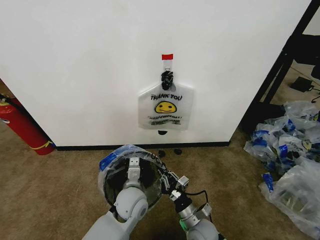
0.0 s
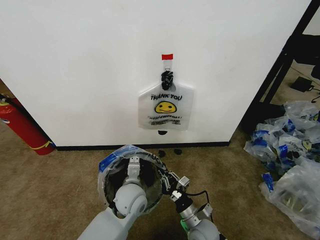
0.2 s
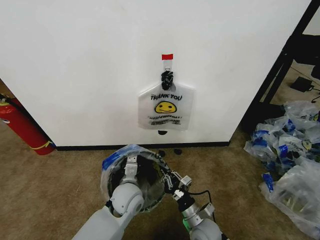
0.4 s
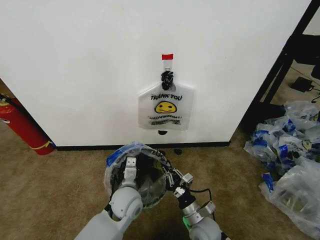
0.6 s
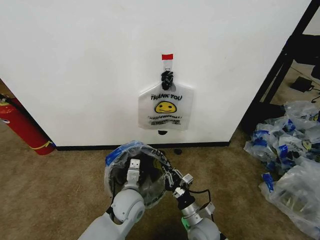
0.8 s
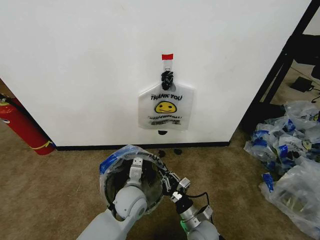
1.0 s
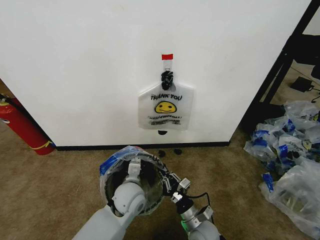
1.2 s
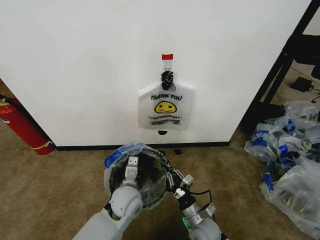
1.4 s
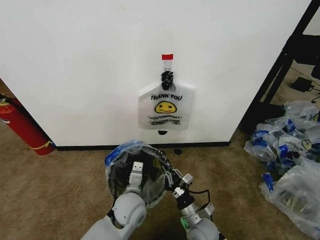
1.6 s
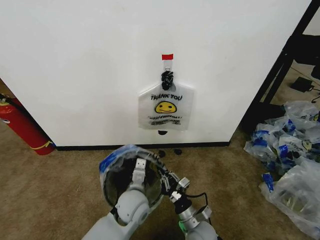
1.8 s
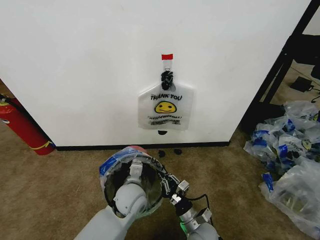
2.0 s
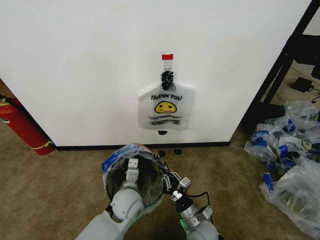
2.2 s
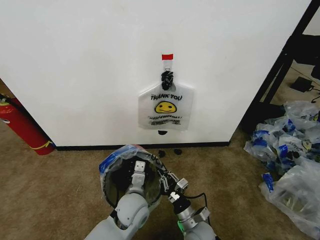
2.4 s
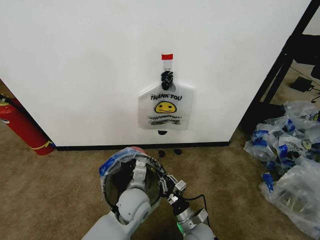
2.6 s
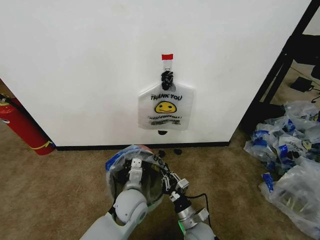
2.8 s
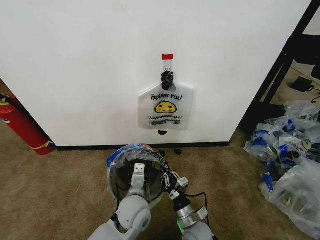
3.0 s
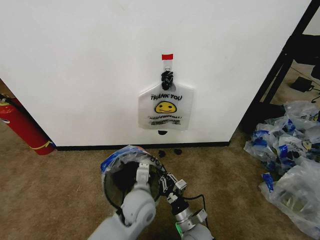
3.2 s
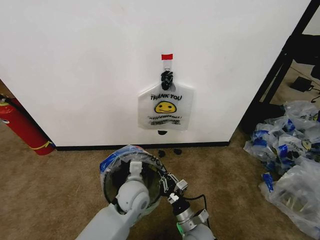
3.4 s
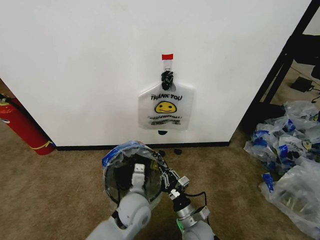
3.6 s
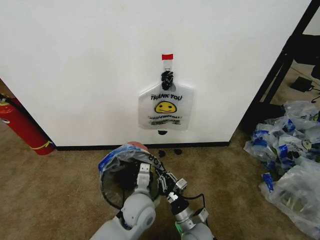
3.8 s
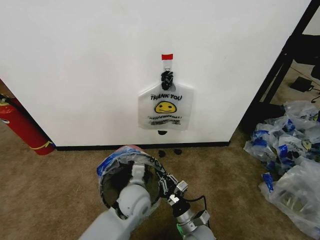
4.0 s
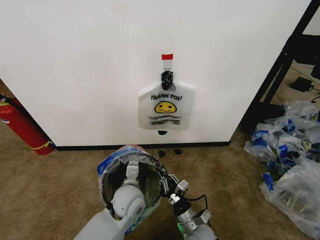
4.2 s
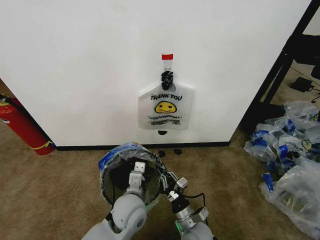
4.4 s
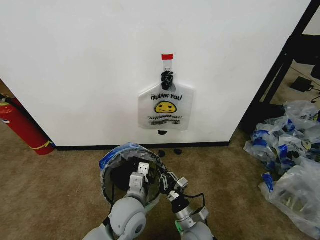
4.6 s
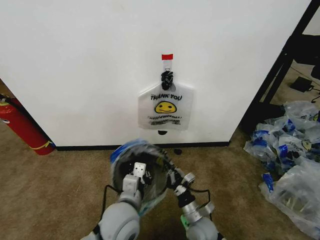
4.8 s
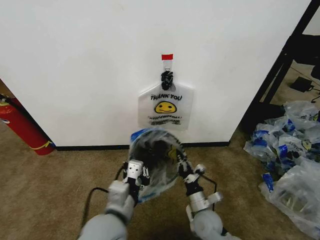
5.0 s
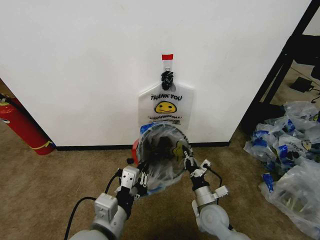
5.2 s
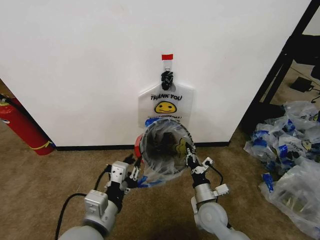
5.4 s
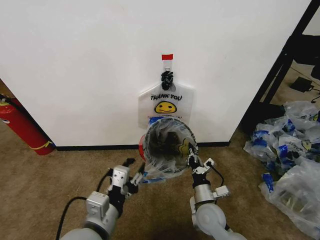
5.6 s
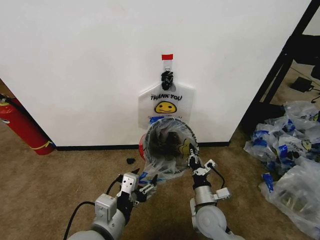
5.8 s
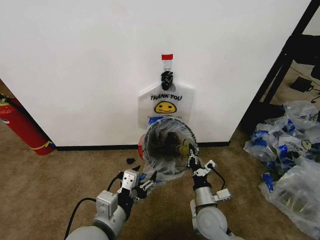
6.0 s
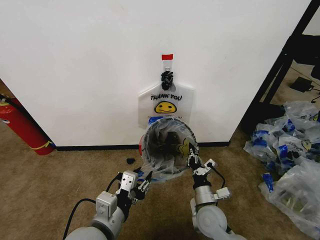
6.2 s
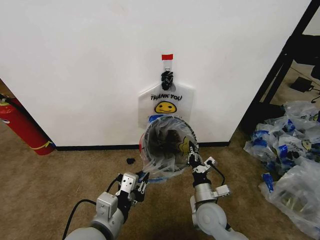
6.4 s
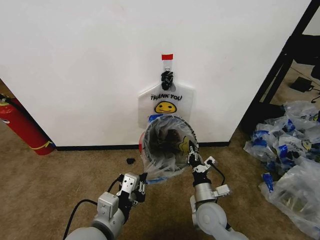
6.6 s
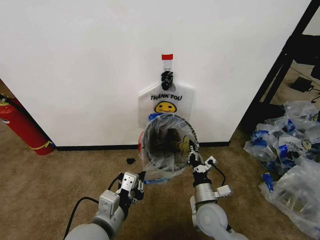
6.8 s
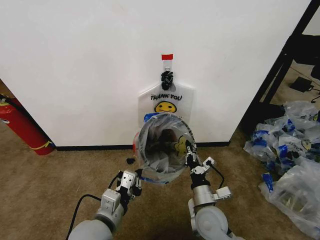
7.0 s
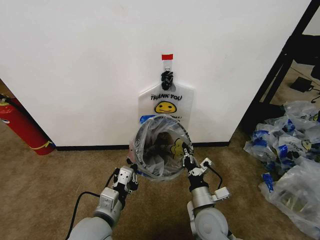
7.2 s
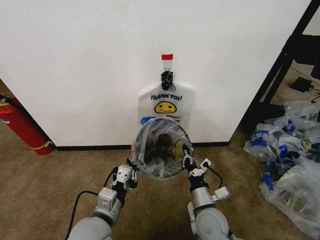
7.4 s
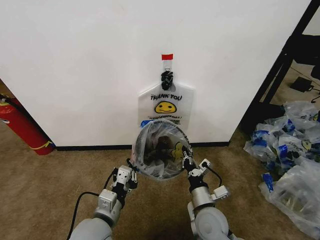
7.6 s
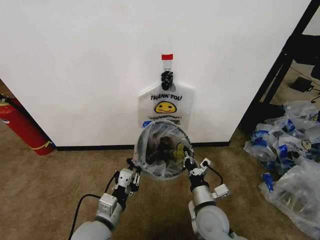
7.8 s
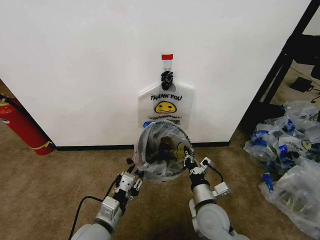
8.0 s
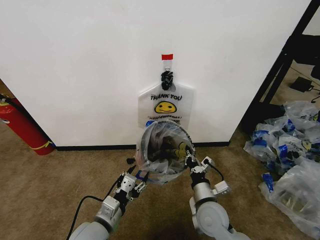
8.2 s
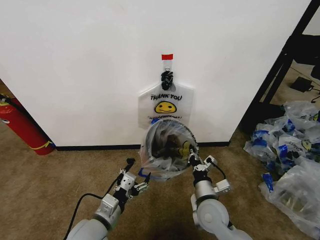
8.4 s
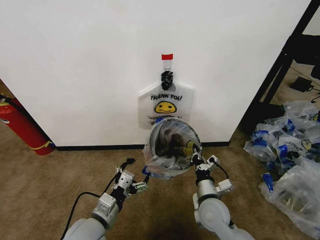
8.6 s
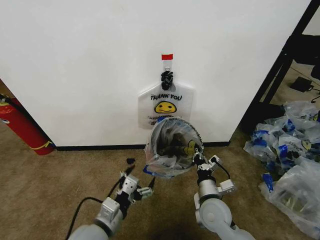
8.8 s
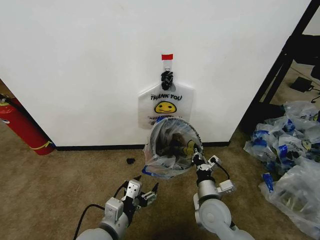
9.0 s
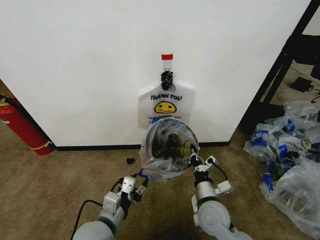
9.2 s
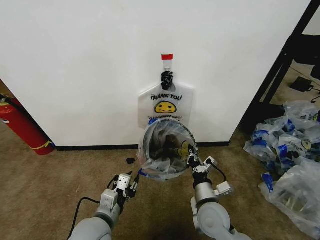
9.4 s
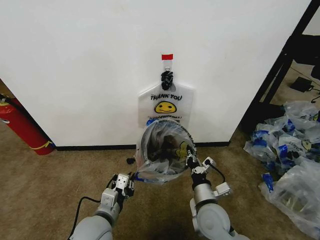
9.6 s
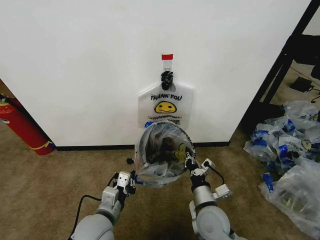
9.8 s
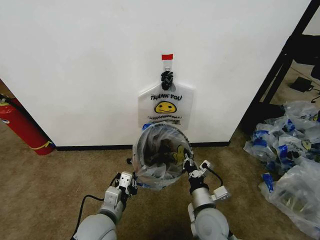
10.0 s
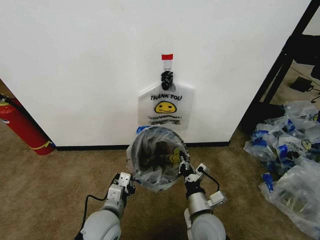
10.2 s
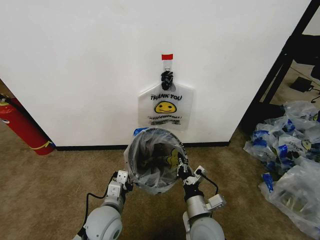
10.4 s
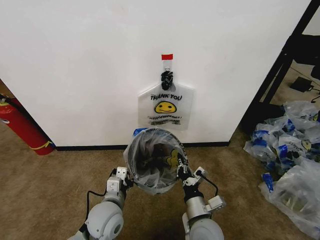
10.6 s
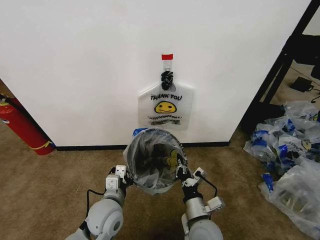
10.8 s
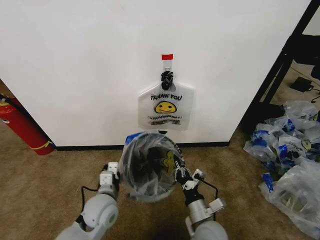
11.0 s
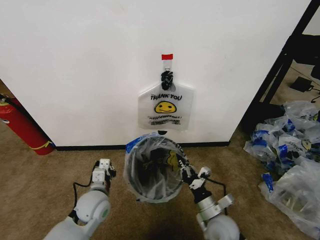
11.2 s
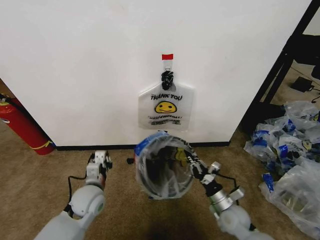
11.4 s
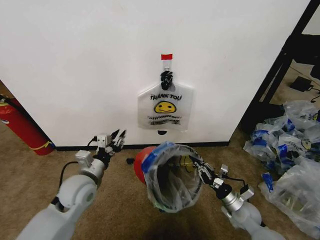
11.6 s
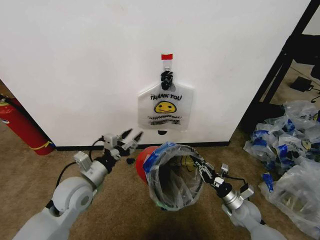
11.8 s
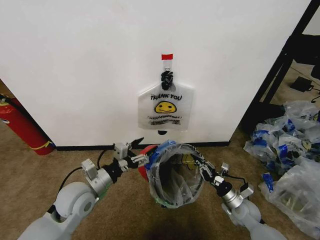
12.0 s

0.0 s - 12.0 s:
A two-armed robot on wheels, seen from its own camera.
Task of the whole recording: Pick up the garbage bag from the wall and place it over the trash bin.
0.0 s - 4.4 s: The grippers make only small movements.
4.4 s - 6.0 s: The left gripper shifts approximately 15 cm backward, upward and to the left, and opens up. The right gripper travels upward by about 5 cm.
6.0 s - 7.6 s: The left gripper moves downward, approximately 5 cm, and closes.
7.6 s - 9.0 s: The left gripper opens.
9.0 s - 10.4 s: The right gripper goes roughly 5 cm backward. The left gripper goes about 10 cm forward and downward, and closes up.
10.4 s - 12.0 s: The left gripper heads to the left and upward, covering some 10 cm, and opens up. The right gripper travels to the right, downward and forward by approximately 25 cm.

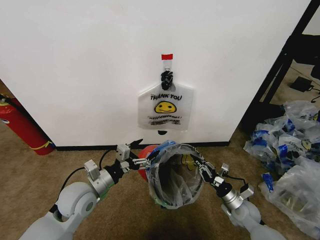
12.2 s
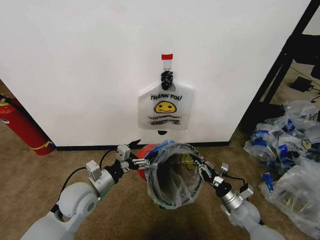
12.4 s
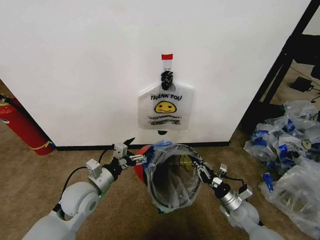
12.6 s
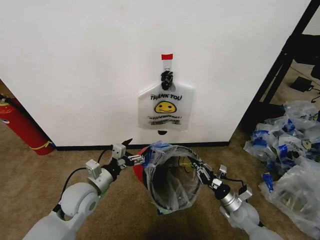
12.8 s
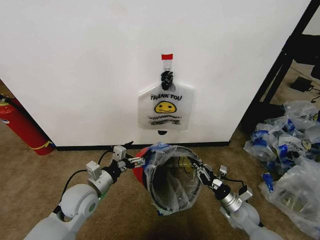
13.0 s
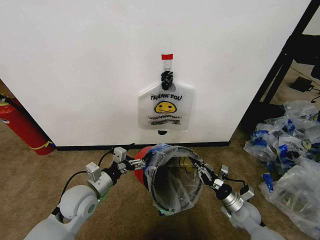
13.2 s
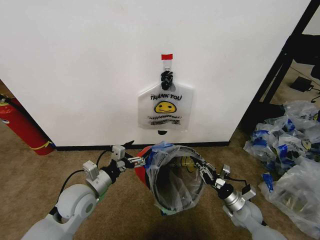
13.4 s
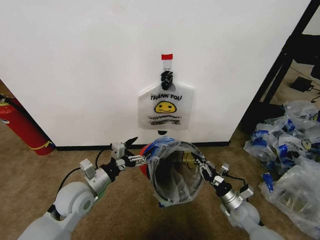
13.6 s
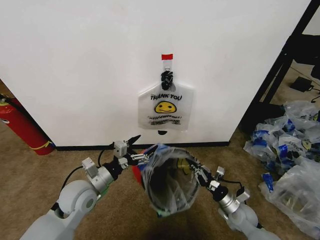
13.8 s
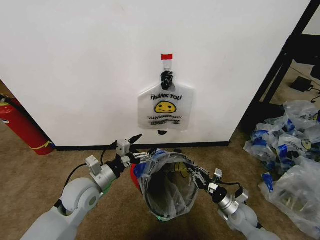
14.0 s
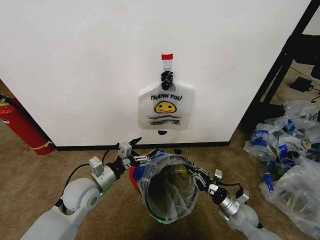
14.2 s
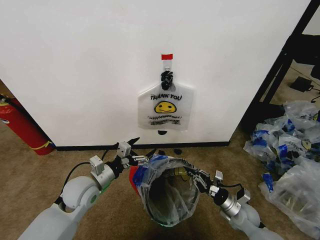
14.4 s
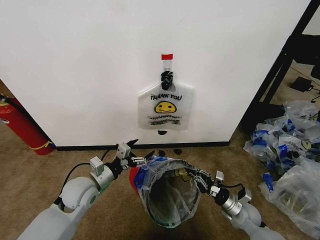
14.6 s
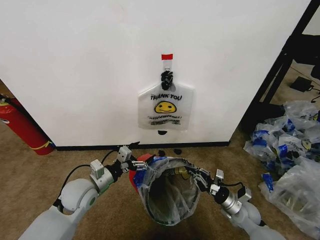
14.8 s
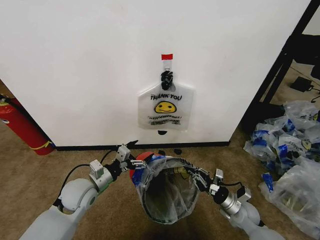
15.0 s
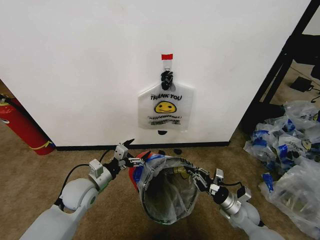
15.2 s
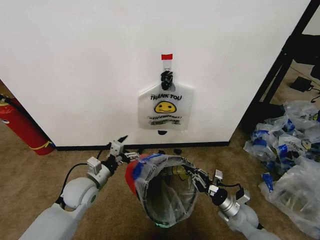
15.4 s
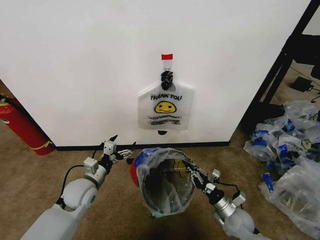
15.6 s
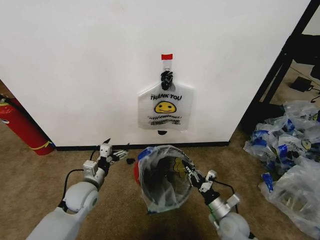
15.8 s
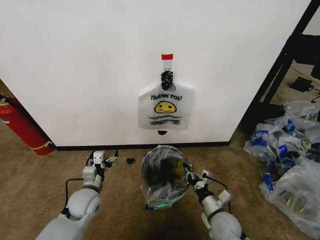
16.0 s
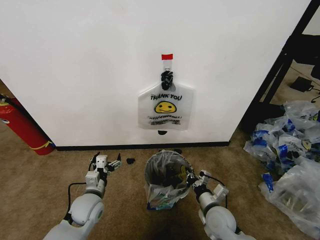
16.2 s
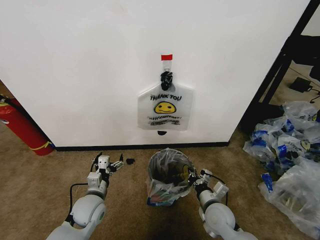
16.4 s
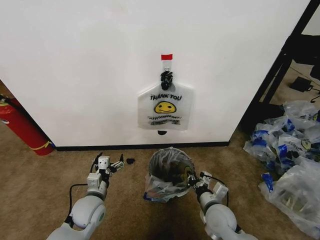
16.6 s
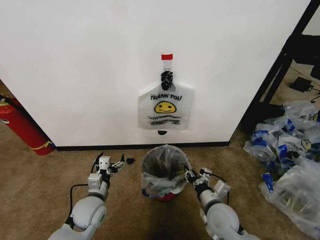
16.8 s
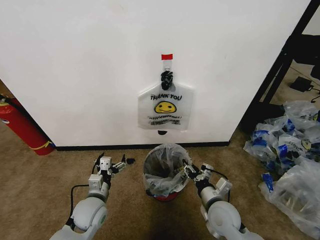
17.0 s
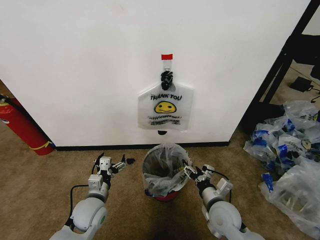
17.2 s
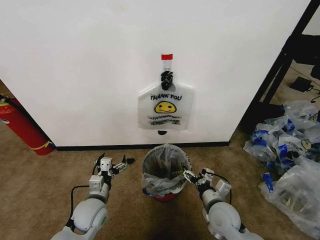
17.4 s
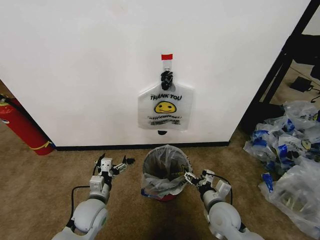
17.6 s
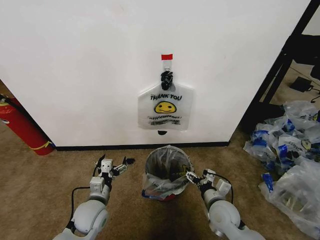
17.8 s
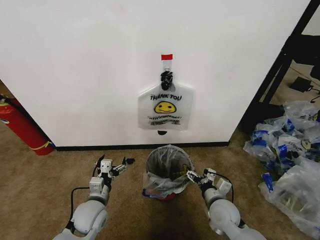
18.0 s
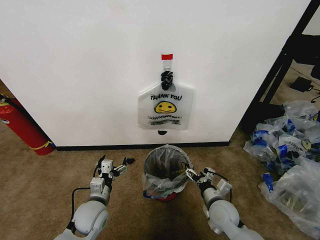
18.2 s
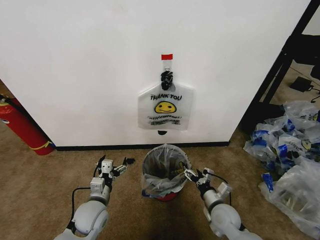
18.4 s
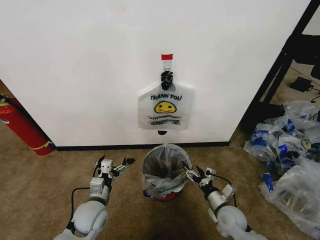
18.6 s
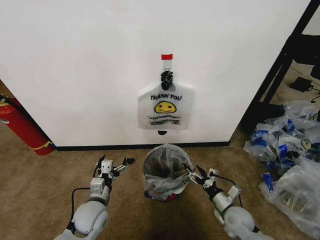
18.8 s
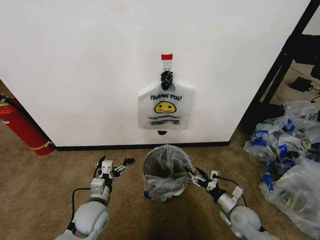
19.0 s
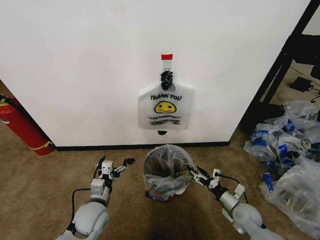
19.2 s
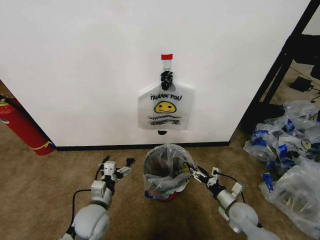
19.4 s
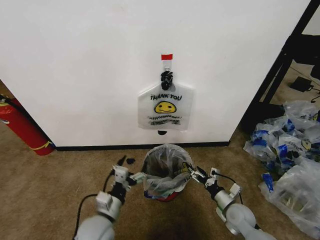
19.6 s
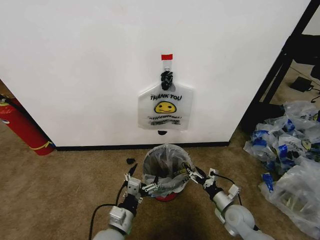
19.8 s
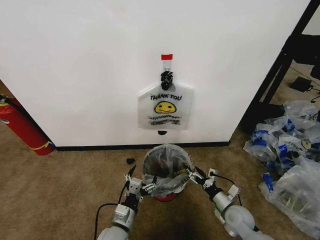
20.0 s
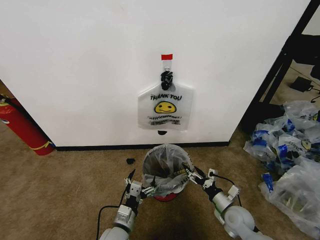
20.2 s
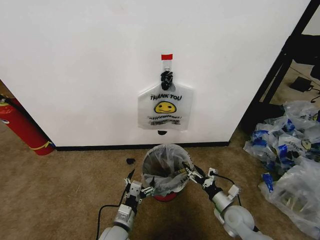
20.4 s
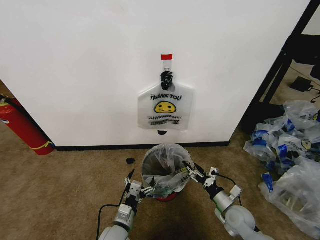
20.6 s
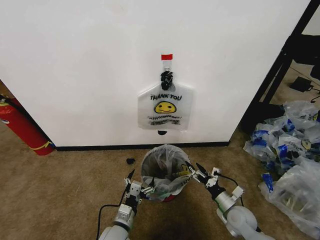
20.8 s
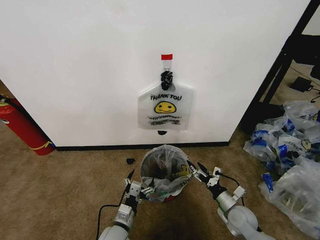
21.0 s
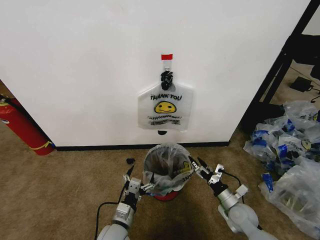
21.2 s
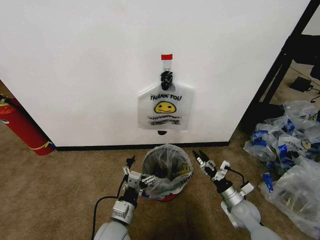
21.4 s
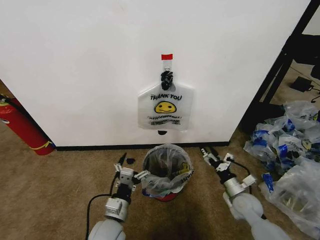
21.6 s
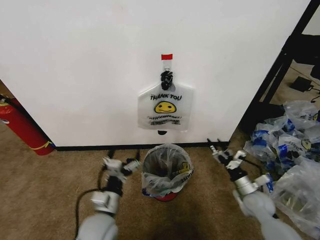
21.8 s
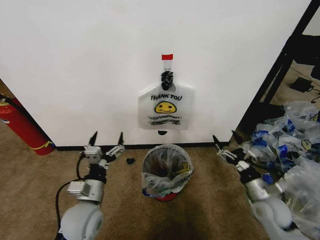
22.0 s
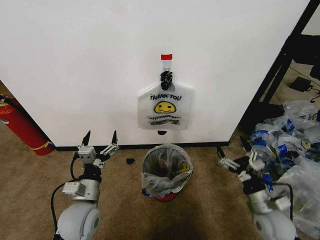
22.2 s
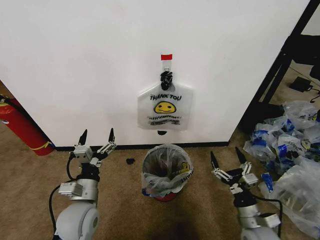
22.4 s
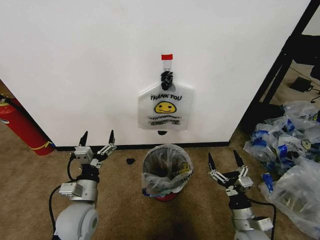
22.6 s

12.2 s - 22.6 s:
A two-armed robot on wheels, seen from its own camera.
Task of the whole recording: Pick up the garbage bag from the wall and place it over the trash bin.
12.2 s - 15.2 s: The grippers stay close to where they were, moving slightly.
15.2 s - 16.6 s: The left gripper shifts some 5 cm downward. Meanwhile the right gripper is displaced to the left by approximately 10 cm.
16.6 s - 18.2 s: The right gripper opens.
18.2 s - 19.6 s: The left gripper heads backward, covering roughly 5 cm; the right gripper is displaced to the right and downward by roughly 10 cm.
19.6 s - 21.2 s: The left gripper travels downward by some 5 cm.
21.2 s - 22.6 s: The right gripper shifts about 10 cm backward and upward, while the left gripper is displaced upward and to the left by approximately 15 cm.
